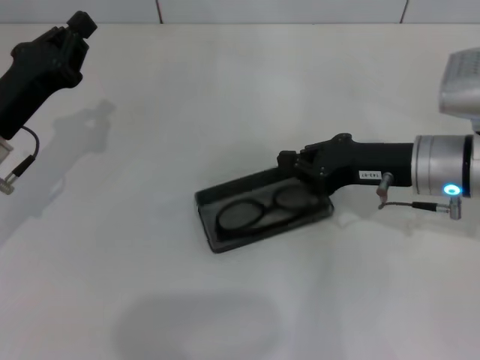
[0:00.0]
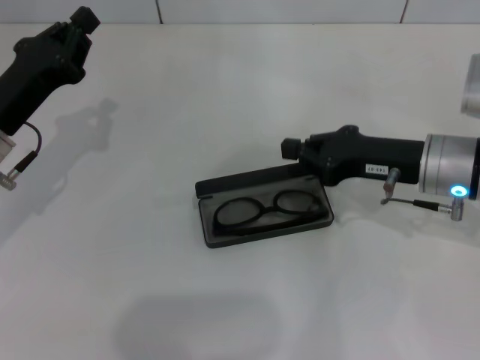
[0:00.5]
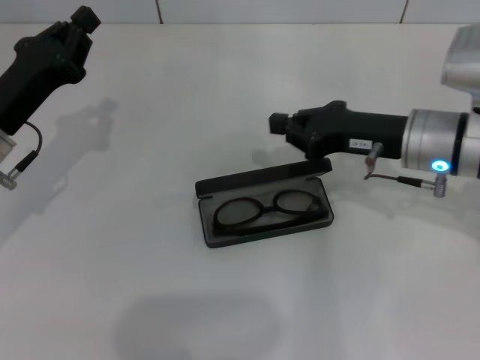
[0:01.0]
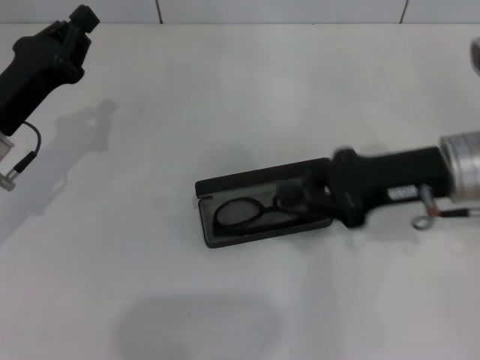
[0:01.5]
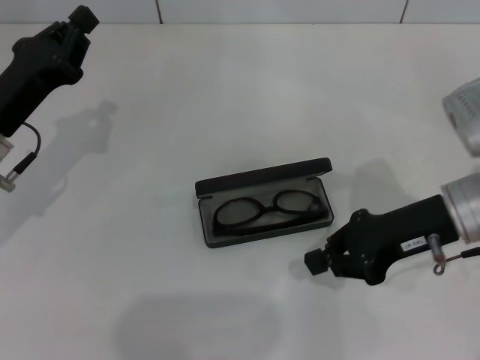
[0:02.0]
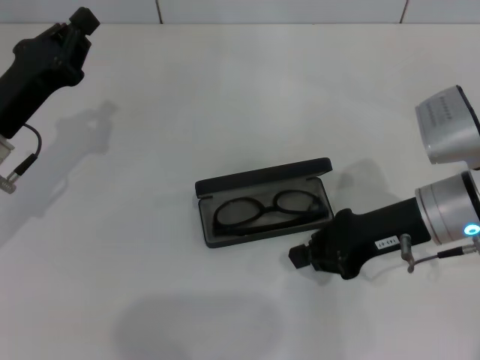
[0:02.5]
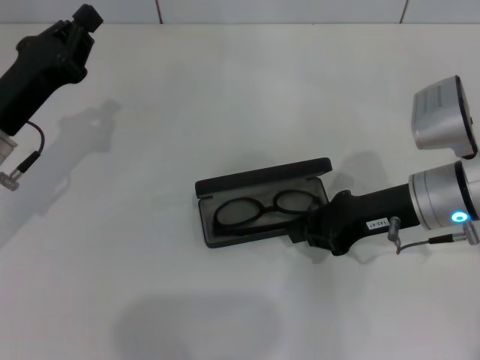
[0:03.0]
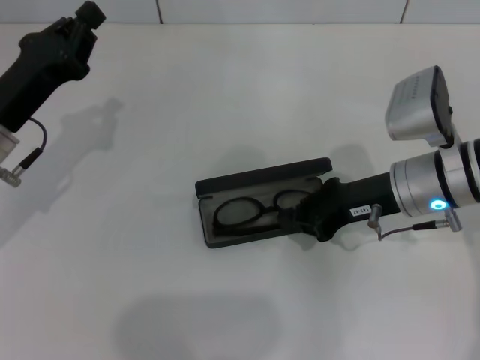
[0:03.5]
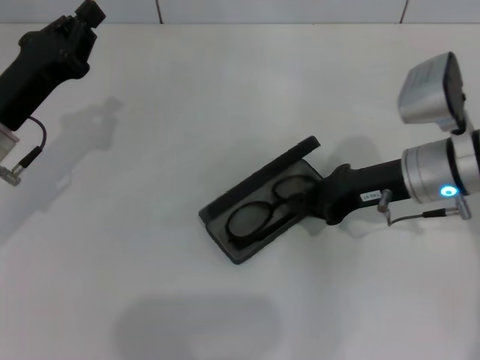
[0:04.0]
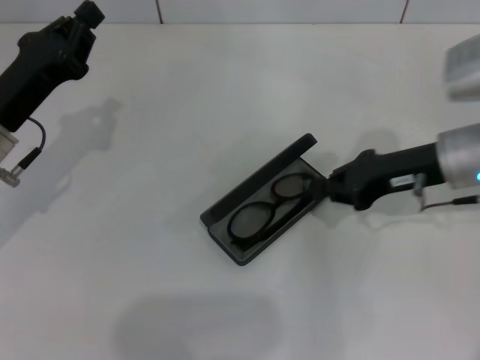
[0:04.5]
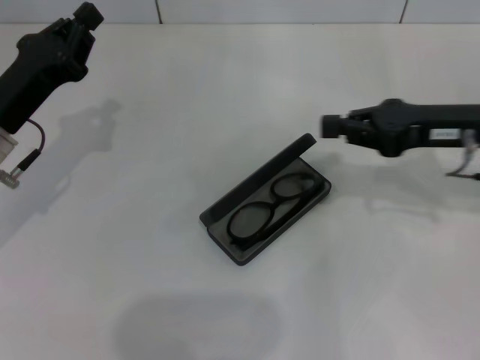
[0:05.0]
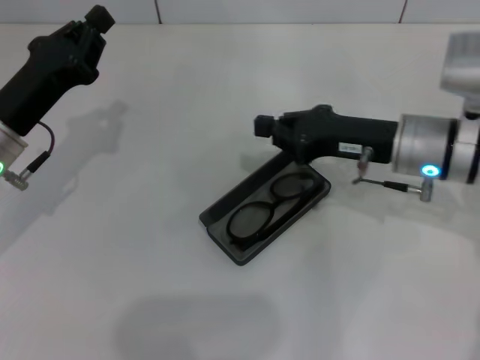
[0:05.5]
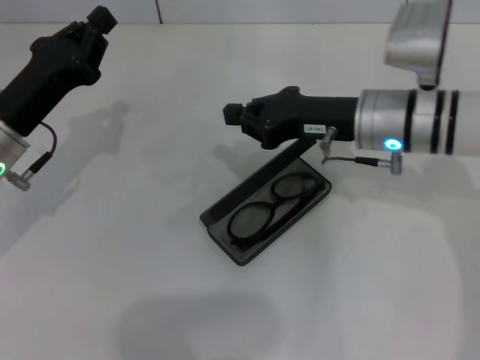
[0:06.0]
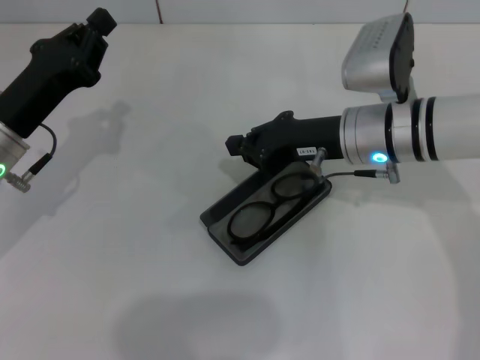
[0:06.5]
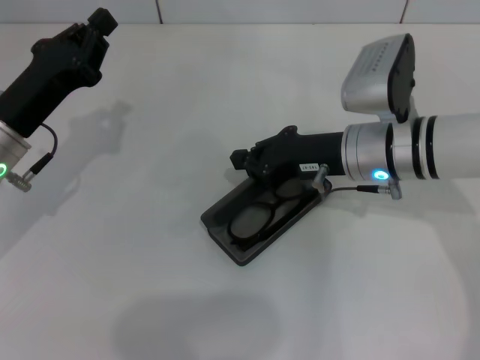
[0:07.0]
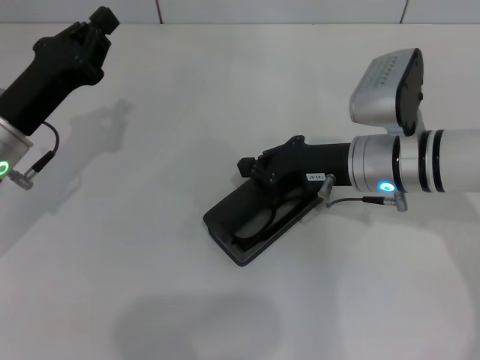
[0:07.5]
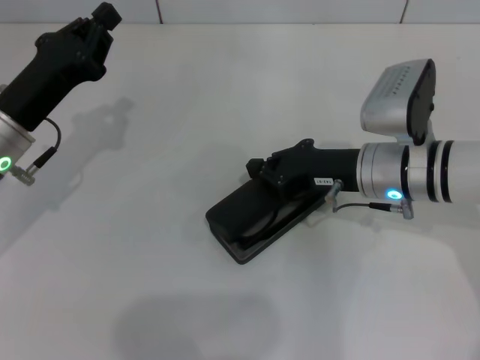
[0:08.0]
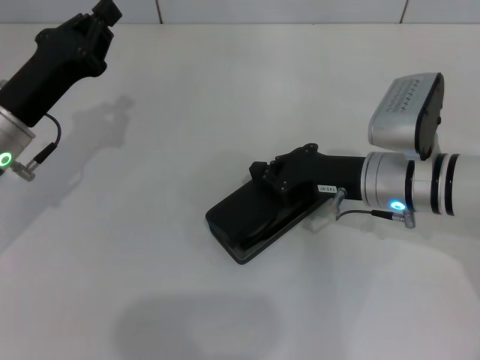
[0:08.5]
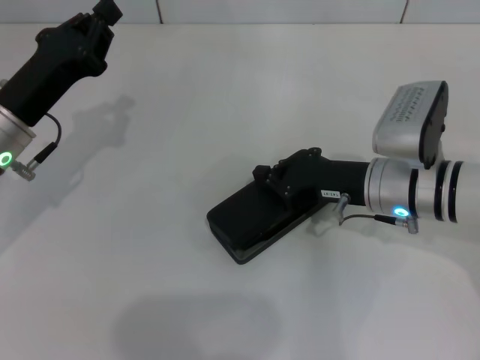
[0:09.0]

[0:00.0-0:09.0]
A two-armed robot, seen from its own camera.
0:02.0 to 0:04.5: The grippers make only small movements.
0:04.5 to 0:07.0: The right gripper moves to the left, approximately 10 cm.
0:07.0 to 0:09.0: The grippers make only small movements.

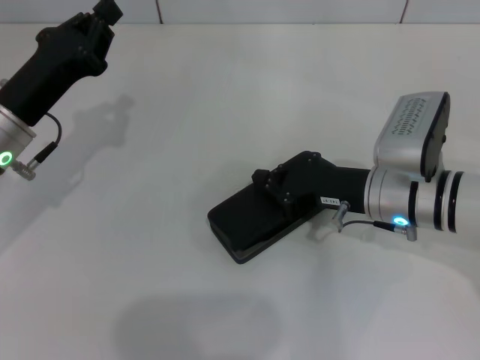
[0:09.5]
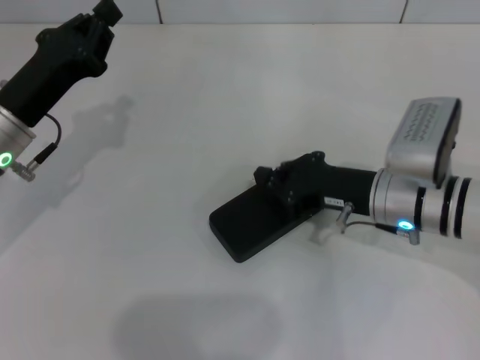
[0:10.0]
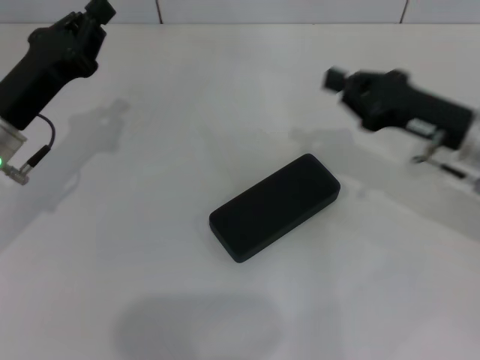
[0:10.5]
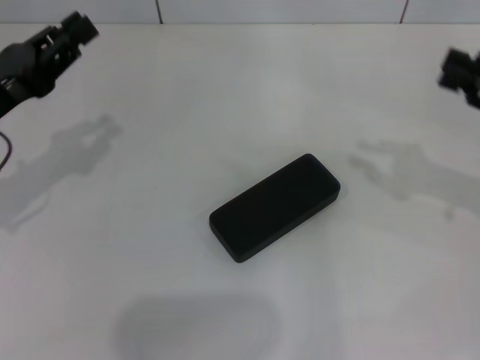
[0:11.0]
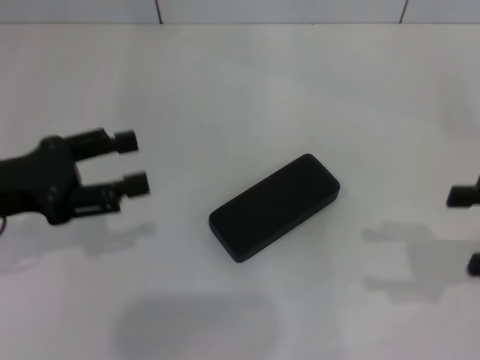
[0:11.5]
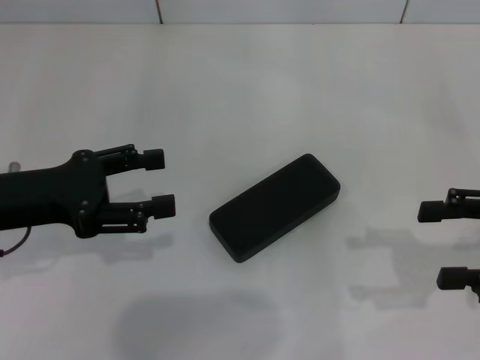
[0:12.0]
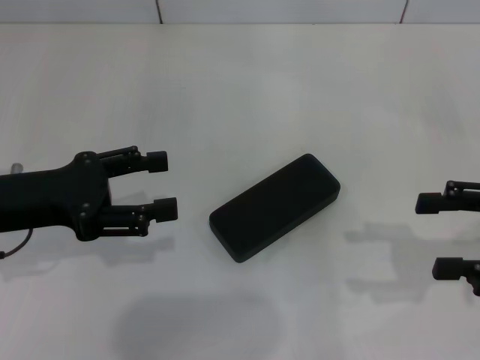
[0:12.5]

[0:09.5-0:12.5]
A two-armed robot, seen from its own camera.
0:09.5 to 0:11.0: The right gripper moves to the right and upward, roughly 20 cm; the left gripper moves roughly 5 cm.
0:11.0 to 0:12.5: The right gripper shifts roughly 5 cm backward, and opens. The left gripper opens up.
